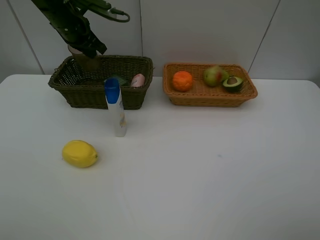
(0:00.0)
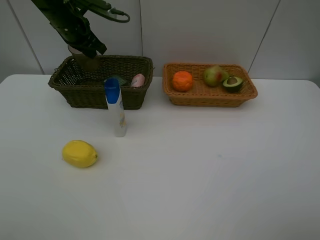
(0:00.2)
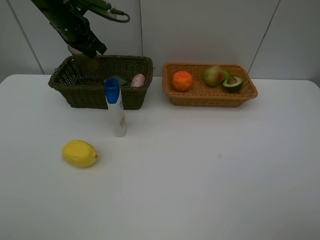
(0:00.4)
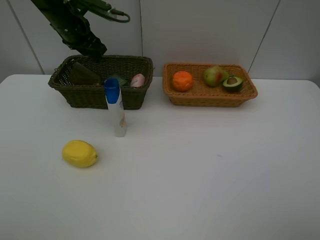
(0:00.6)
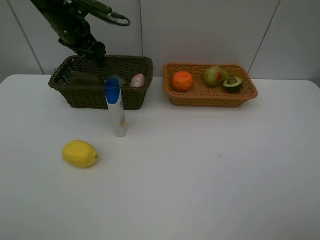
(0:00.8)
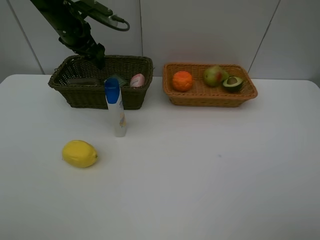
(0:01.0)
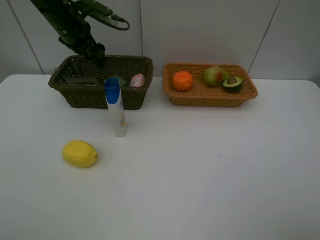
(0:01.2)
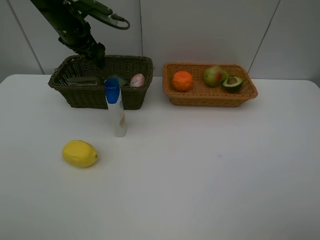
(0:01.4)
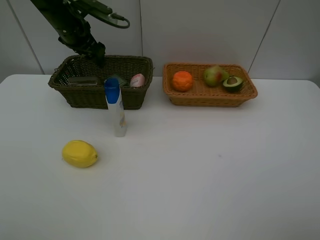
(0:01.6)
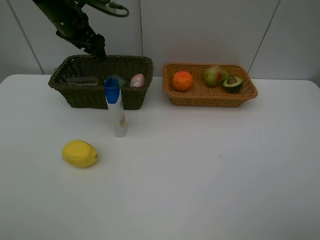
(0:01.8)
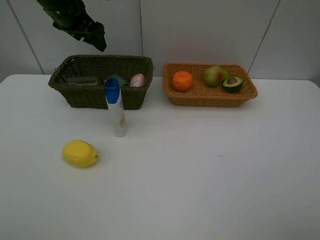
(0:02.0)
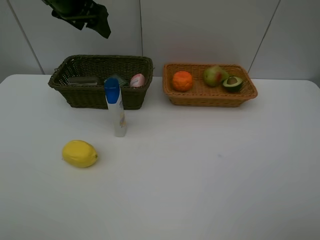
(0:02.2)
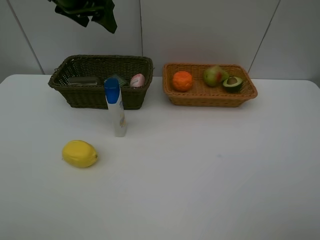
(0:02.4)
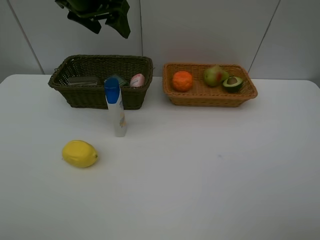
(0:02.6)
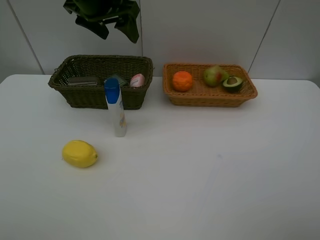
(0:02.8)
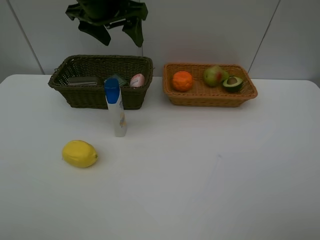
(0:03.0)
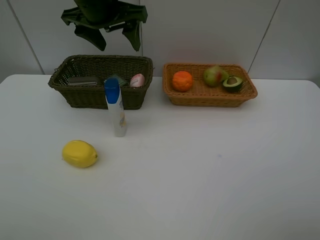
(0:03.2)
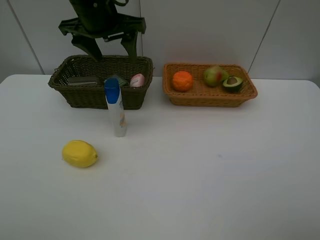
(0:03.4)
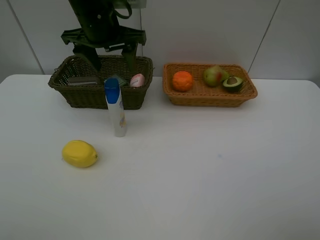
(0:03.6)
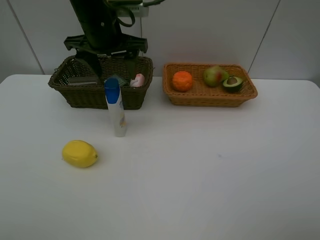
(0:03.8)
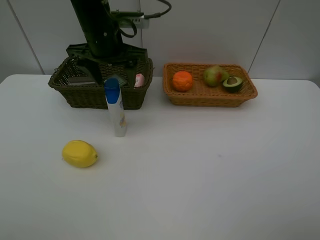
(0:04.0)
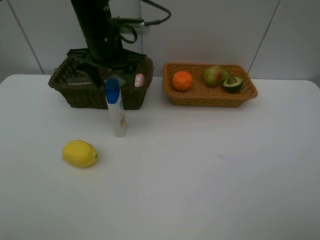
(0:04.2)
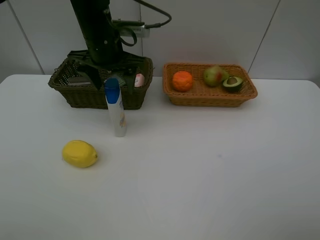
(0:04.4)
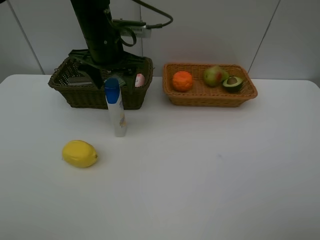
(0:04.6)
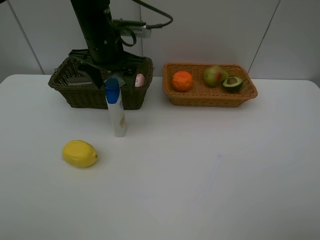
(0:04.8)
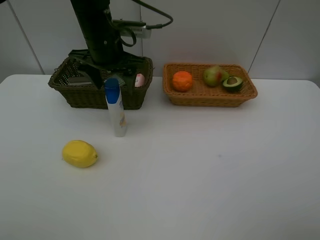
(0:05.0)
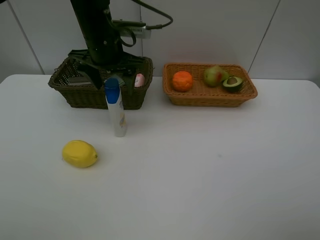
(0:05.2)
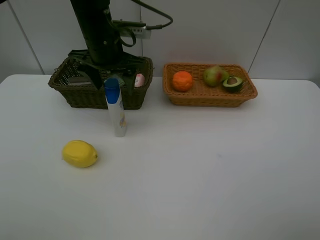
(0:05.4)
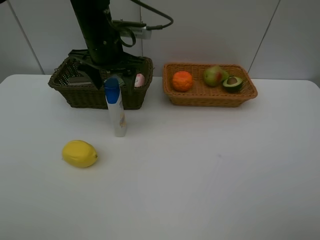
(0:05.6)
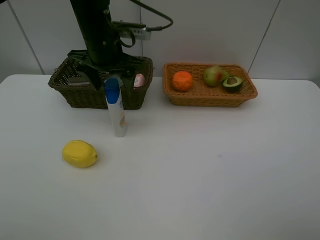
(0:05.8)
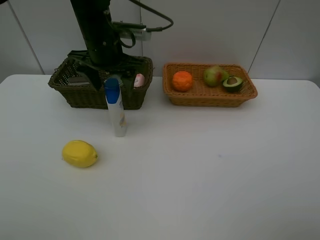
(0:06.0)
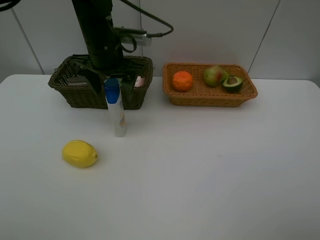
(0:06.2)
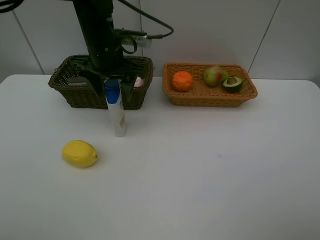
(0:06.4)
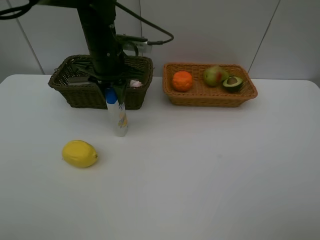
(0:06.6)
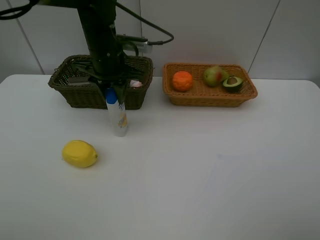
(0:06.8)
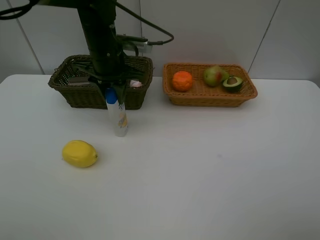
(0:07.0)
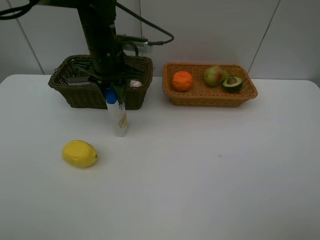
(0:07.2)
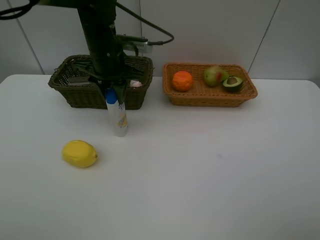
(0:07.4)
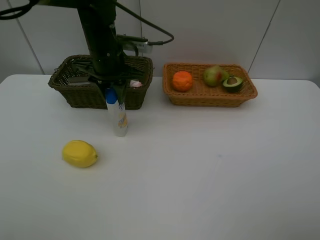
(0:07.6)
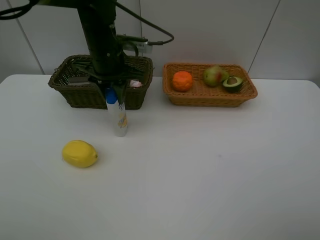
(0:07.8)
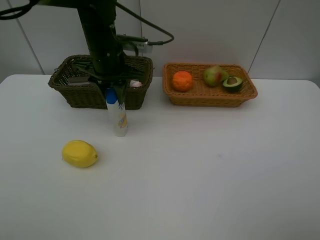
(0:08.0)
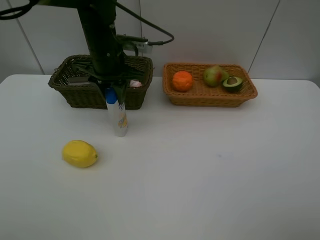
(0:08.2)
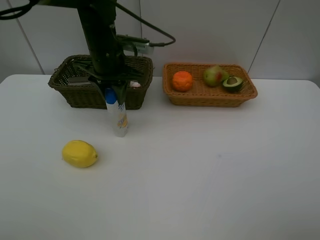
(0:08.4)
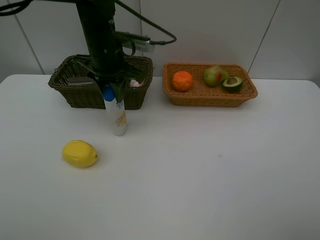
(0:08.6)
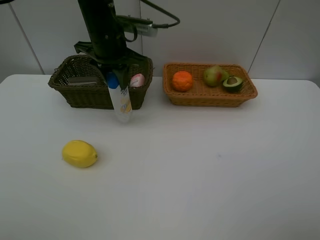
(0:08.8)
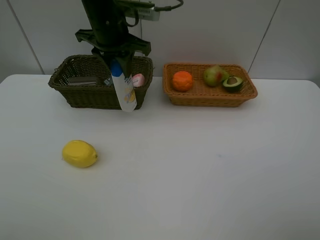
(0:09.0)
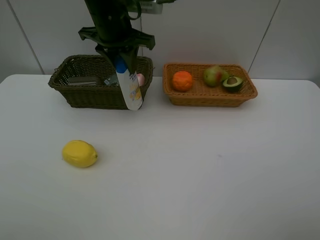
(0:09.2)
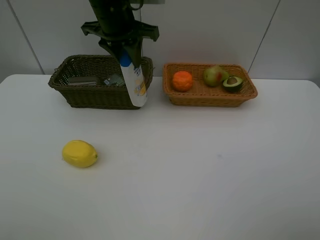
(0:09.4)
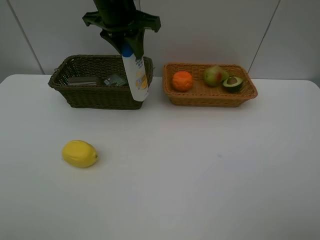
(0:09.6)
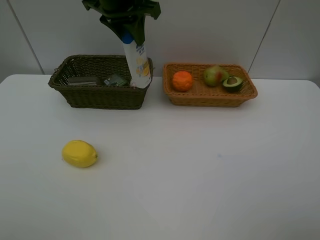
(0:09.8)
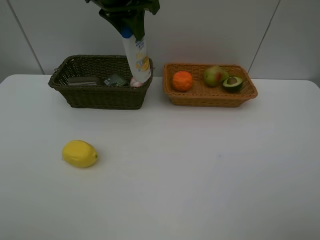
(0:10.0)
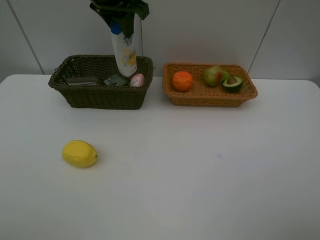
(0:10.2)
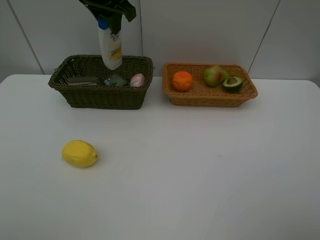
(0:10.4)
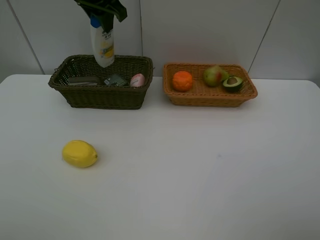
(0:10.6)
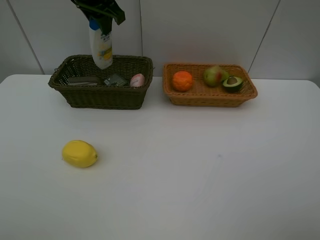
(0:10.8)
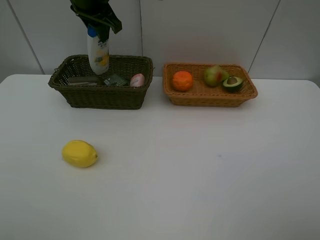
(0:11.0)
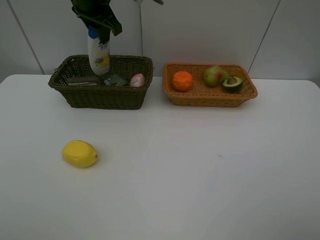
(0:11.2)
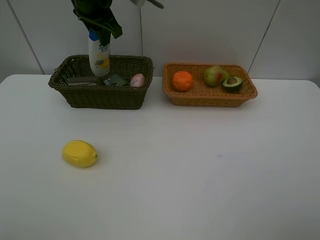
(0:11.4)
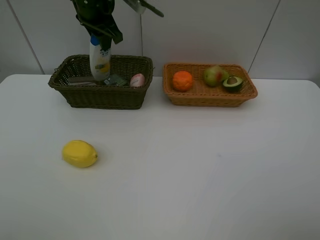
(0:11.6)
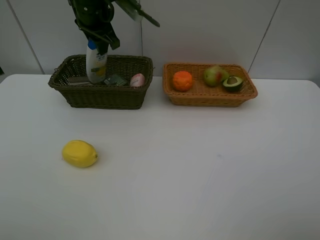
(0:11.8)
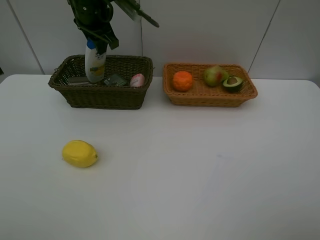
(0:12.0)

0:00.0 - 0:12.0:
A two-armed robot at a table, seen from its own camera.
Task of the whole recording: Place multiple objects separately in different baskets.
Step, 0:02.0 - 0:08.8: Pick up the laundry detergent with left gripper.
0:00.0 - 0:01.6: The left gripper opens.
0:01.6 - 0:03.0: The left gripper shifts approximately 15 cm to the right, backward and upward.
0:03.0 - 0:04.4: The left gripper moves downward, roughly 10 cm.
0:04.4 - 0:06.0: Both grippers stay put.
0:06.0 - 0:07.6: The left gripper closes its fingers.
0:07.6 - 0:09.0: The left gripper goes about 5 cm upward.
0:09.0 - 0:10.4: The left gripper moves upward, about 5 cm.
0:10.4 - 0:12.0: The left gripper is displaced downward by roughly 5 cm.

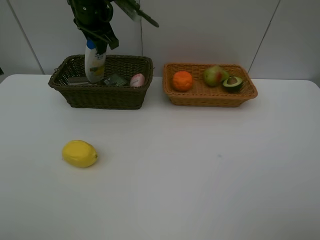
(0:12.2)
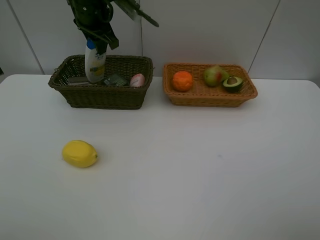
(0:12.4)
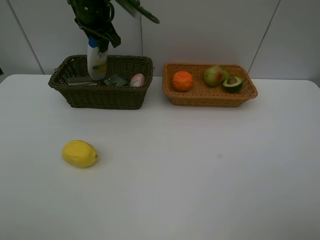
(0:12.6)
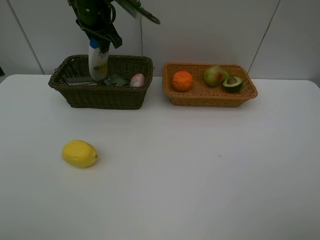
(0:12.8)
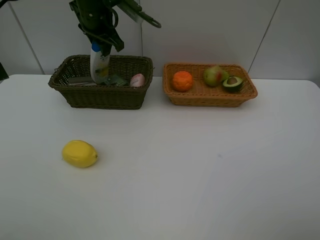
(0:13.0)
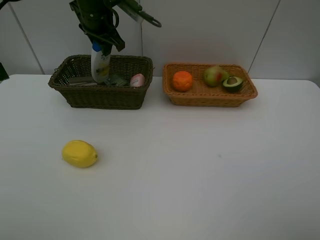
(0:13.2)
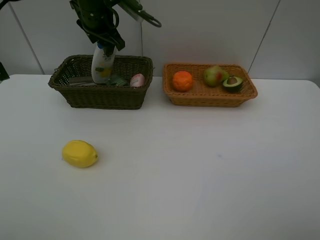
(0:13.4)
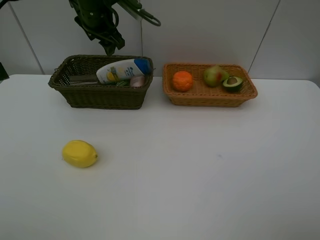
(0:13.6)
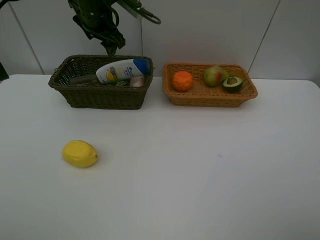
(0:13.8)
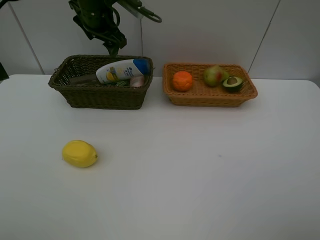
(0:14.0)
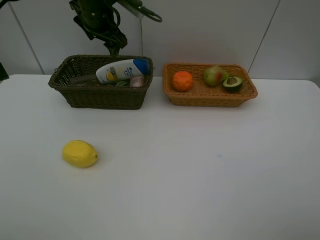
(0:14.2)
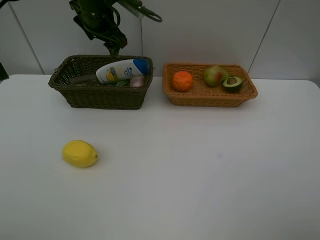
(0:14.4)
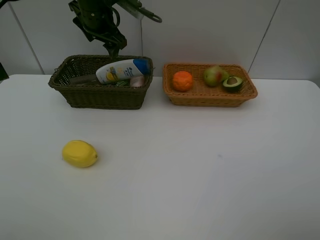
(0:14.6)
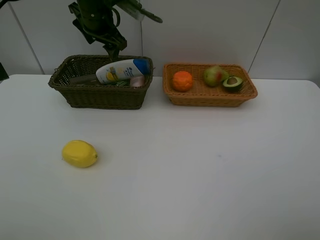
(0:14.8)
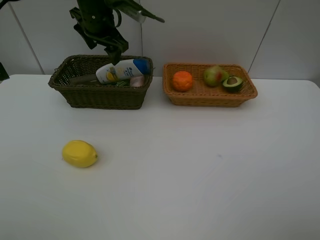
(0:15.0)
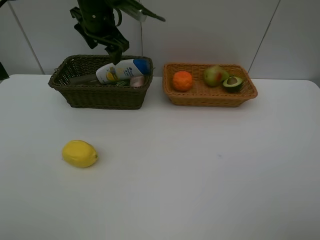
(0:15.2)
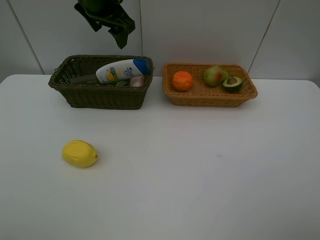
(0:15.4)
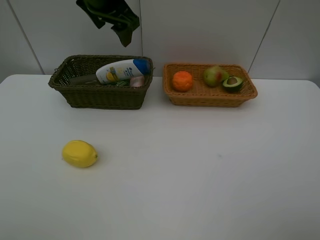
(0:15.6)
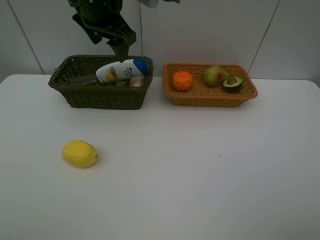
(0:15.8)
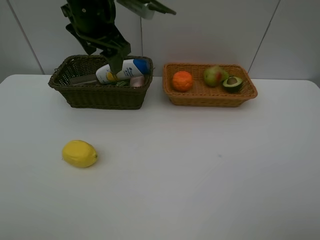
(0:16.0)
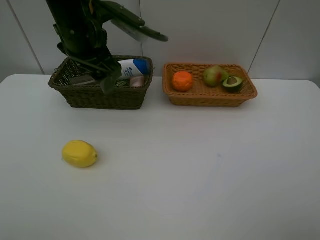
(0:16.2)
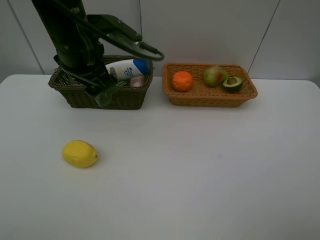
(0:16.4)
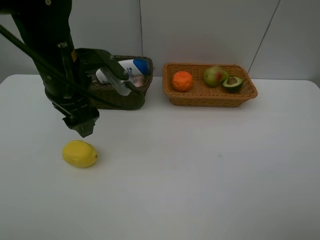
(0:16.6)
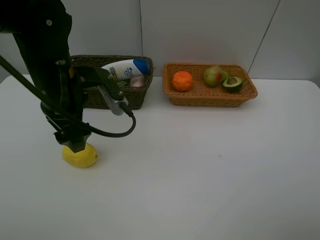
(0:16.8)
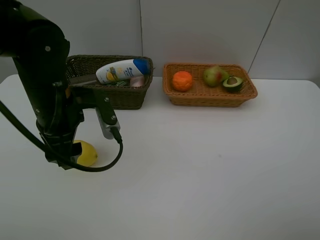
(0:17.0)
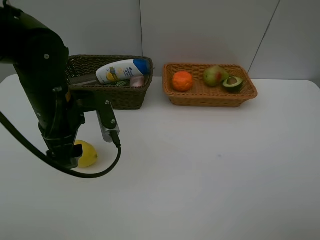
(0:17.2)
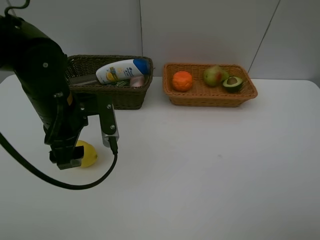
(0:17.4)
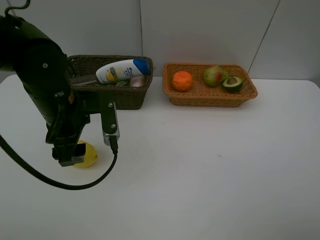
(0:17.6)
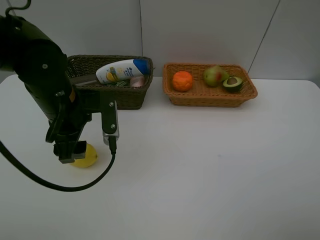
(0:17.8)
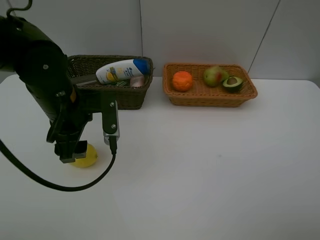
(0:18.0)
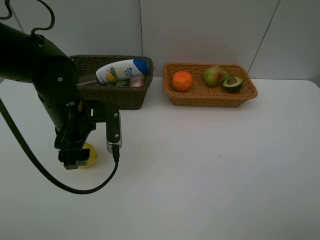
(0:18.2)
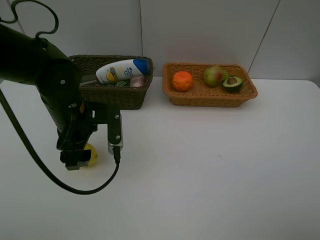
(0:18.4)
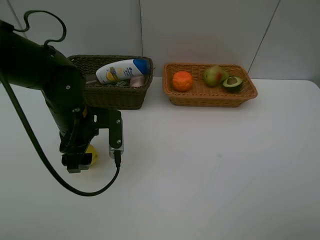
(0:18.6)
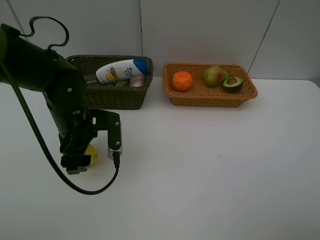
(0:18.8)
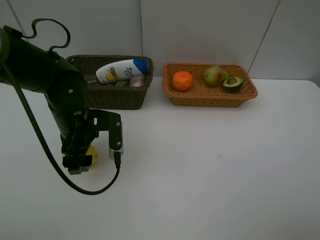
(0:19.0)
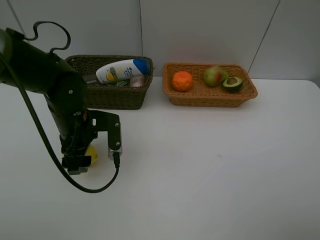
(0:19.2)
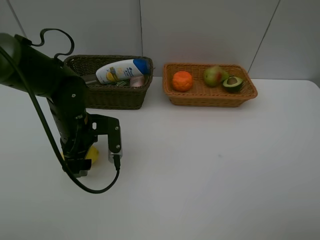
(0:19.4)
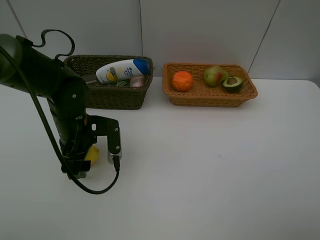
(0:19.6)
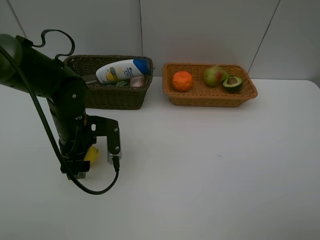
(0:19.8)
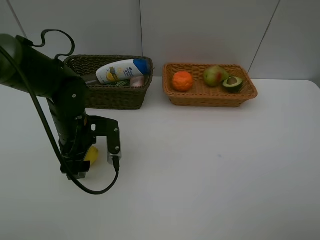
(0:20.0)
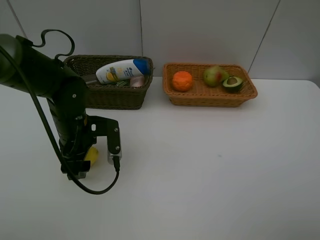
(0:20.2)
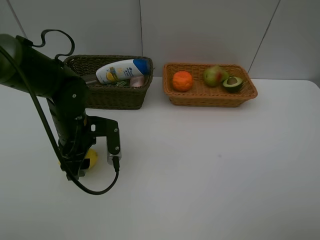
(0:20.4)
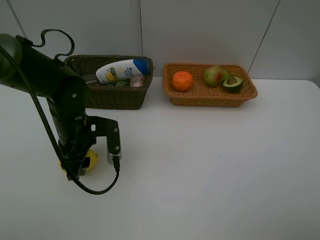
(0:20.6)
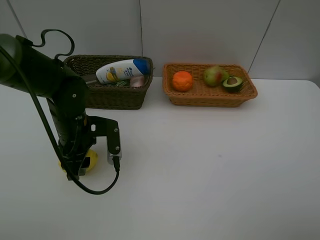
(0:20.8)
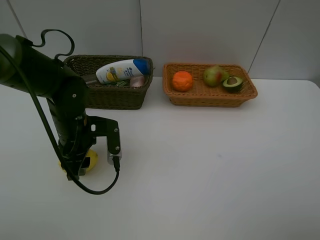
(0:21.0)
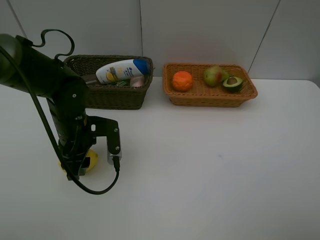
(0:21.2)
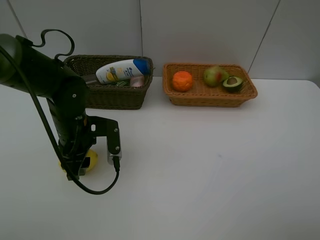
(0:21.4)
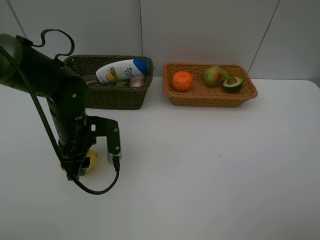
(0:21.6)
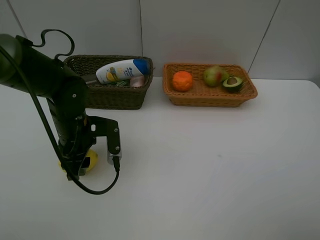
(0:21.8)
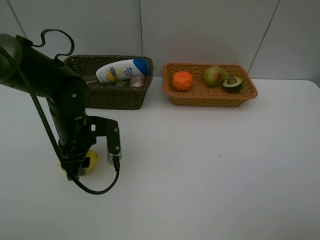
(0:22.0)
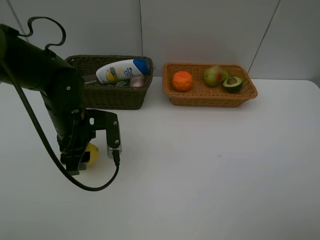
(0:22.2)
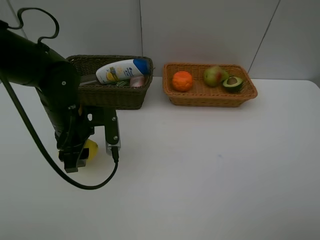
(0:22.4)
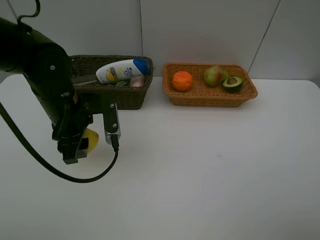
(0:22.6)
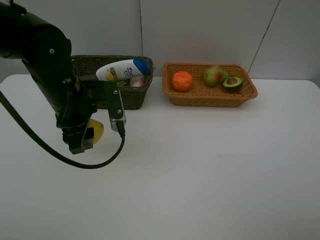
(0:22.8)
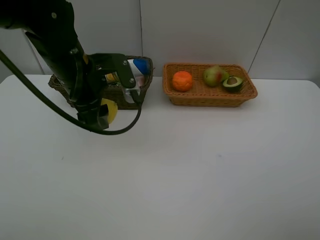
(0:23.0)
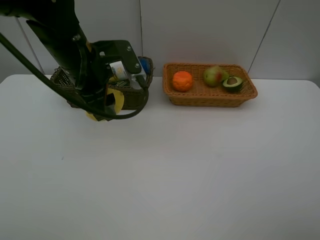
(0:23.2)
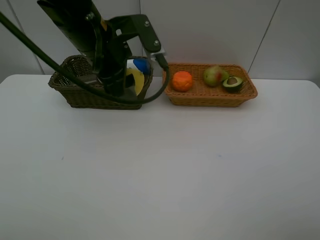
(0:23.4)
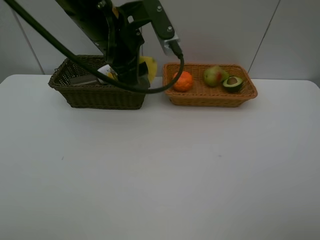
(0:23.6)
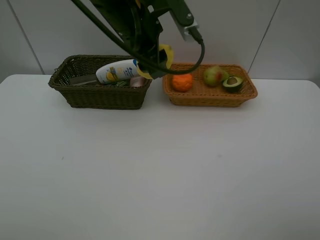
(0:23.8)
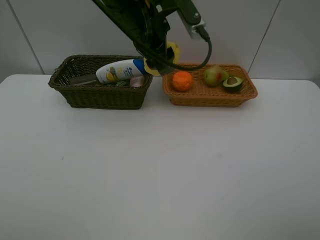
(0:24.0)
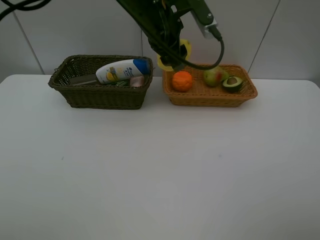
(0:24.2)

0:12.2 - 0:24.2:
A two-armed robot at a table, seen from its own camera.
Task of the whole recording: Place multiple objects separately in different baskets.
Step, 0:14.2 - 0:22.4: Pick up the lemon with left gripper.
0:12.2 - 0:13.8: The left gripper opens up.
0:13.8 - 0:15.2: The grippers move only a little.
0:15.2 - 0:16.6: The left gripper shifts roughly 20 cm backward.
0:16.6 - 0:18.2: The left gripper heads downward, covering some 10 cm.
0:18.2 - 0:19.8: The grippers stay close to where they were, moving slightly.
0:19.8 - 0:21.2: Both grippers stay put.
0:21.2 - 0:22.6: The left gripper moves upward, some 5 cm.
0:22.6 - 0:24.2: The left gripper is displaced to the right, forward and upward by some 20 cm.
